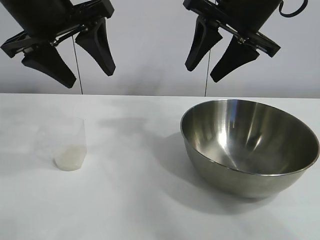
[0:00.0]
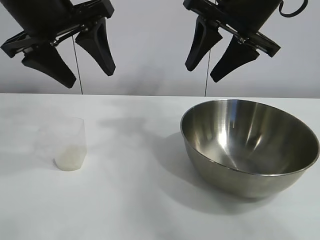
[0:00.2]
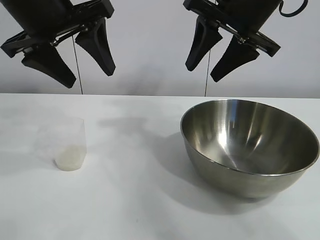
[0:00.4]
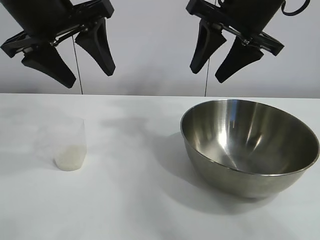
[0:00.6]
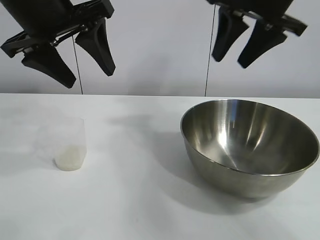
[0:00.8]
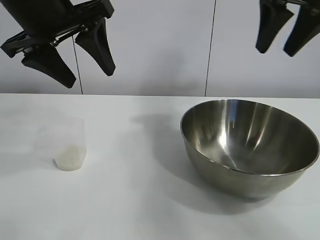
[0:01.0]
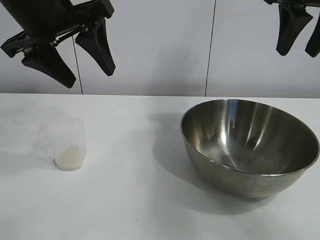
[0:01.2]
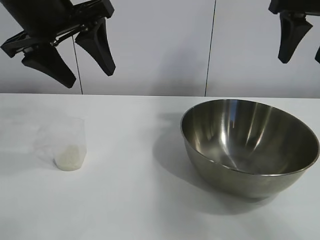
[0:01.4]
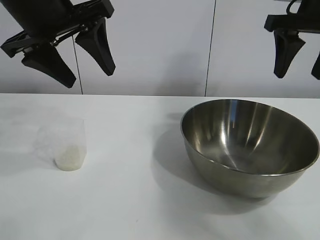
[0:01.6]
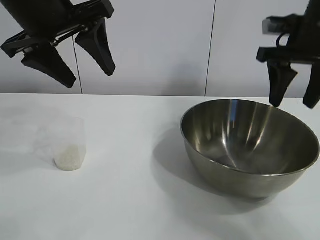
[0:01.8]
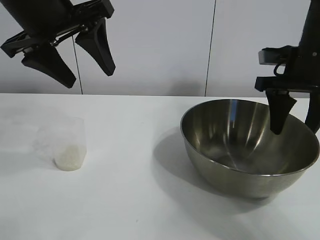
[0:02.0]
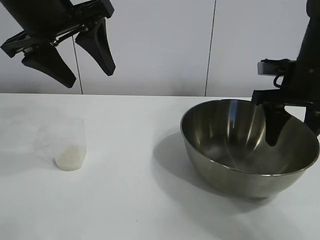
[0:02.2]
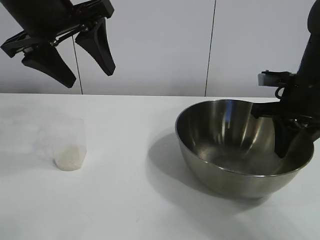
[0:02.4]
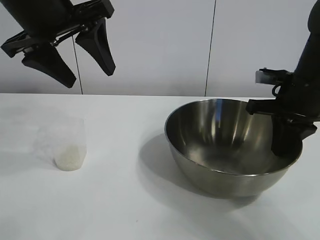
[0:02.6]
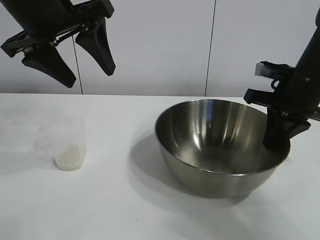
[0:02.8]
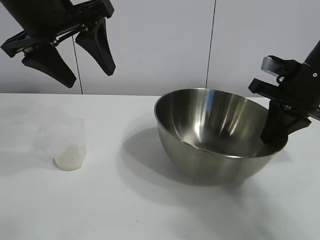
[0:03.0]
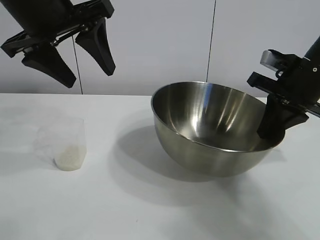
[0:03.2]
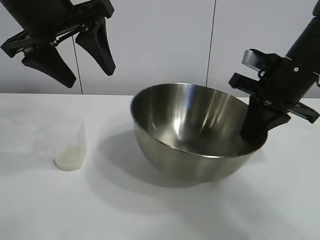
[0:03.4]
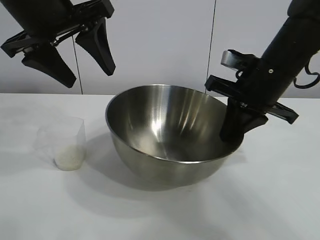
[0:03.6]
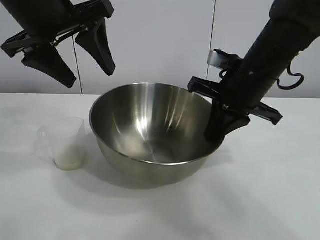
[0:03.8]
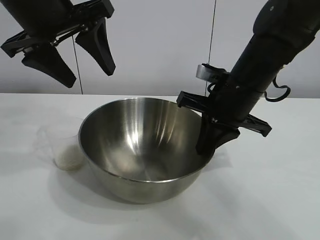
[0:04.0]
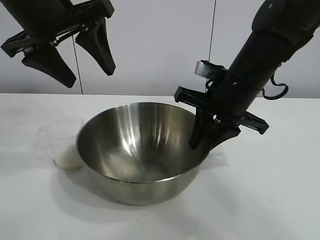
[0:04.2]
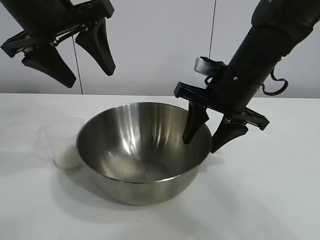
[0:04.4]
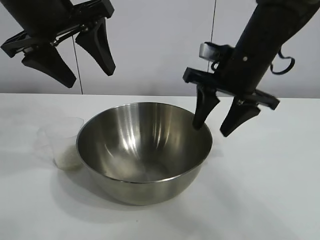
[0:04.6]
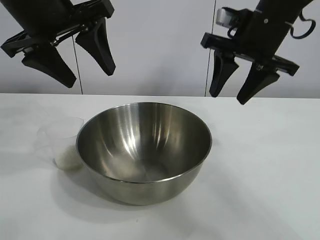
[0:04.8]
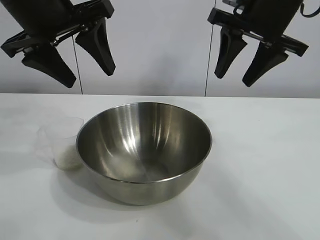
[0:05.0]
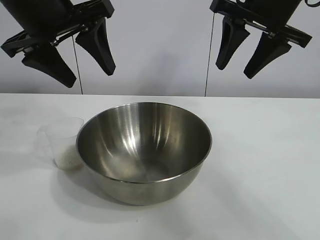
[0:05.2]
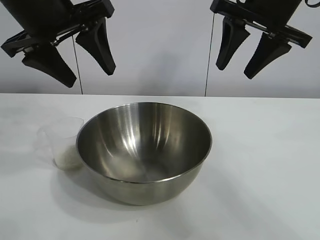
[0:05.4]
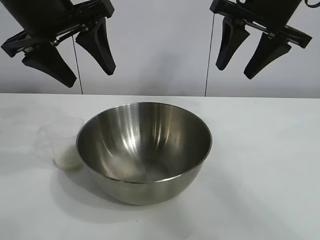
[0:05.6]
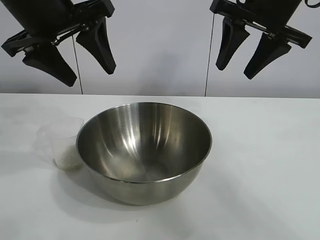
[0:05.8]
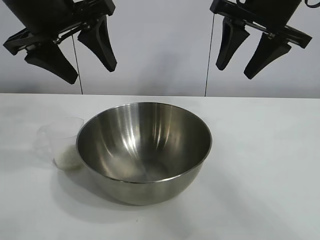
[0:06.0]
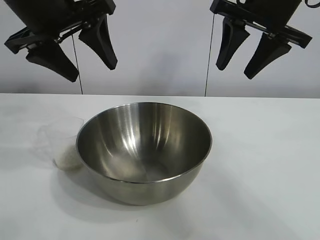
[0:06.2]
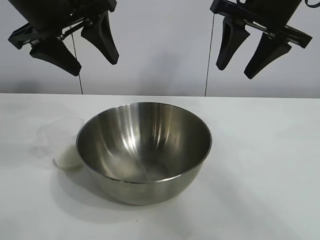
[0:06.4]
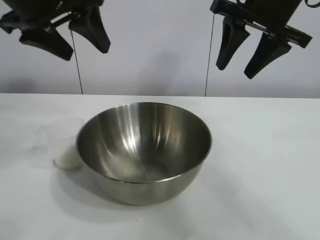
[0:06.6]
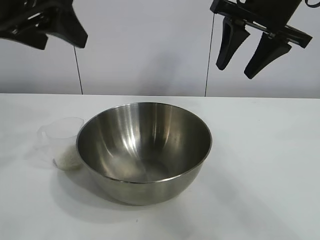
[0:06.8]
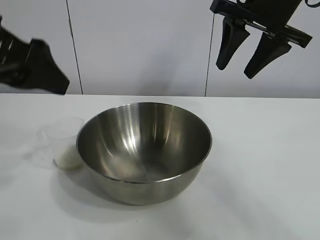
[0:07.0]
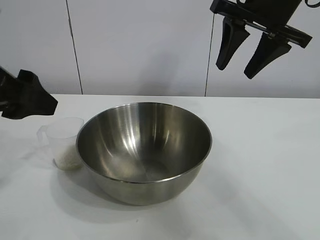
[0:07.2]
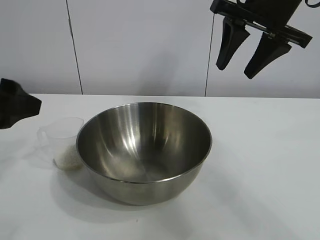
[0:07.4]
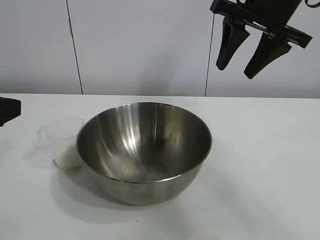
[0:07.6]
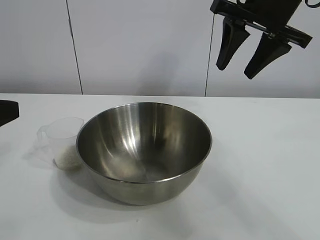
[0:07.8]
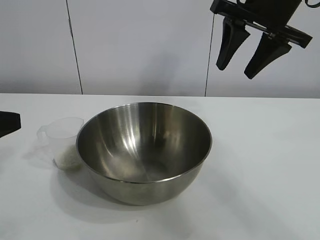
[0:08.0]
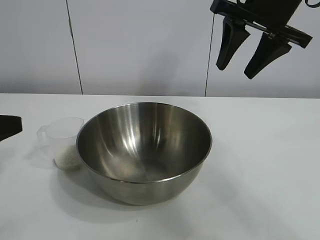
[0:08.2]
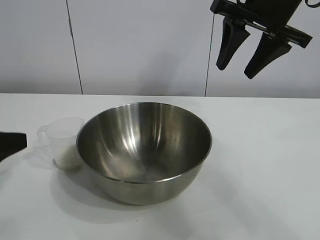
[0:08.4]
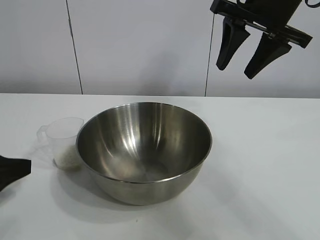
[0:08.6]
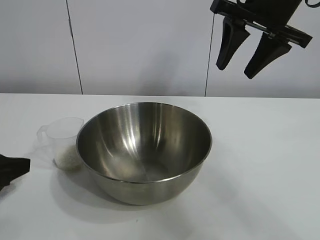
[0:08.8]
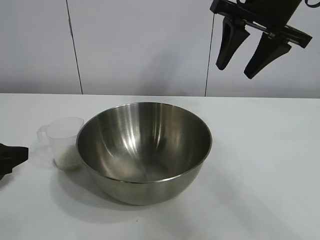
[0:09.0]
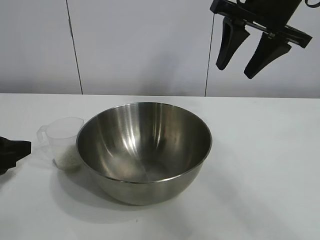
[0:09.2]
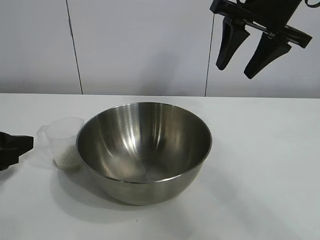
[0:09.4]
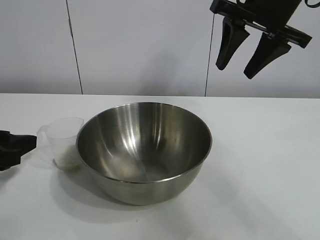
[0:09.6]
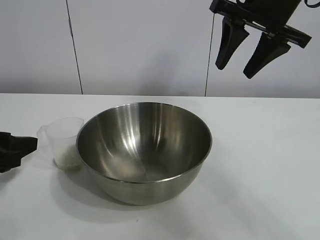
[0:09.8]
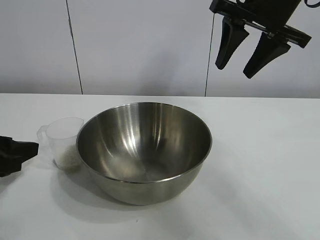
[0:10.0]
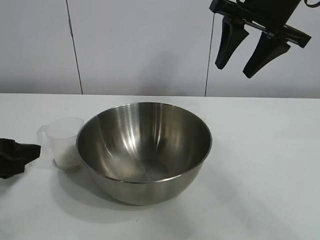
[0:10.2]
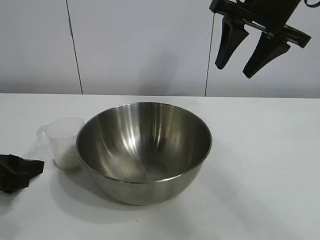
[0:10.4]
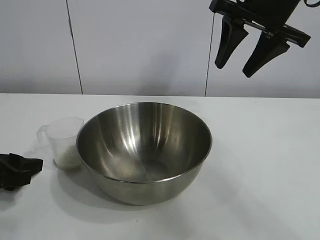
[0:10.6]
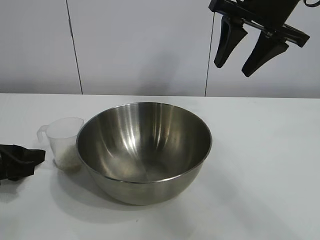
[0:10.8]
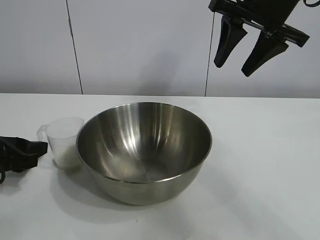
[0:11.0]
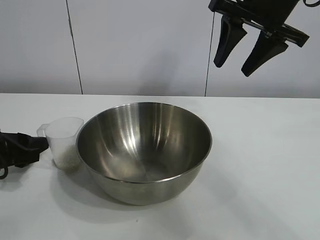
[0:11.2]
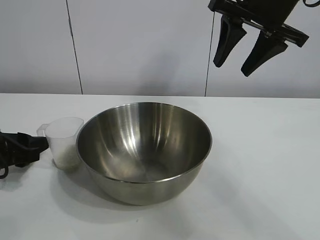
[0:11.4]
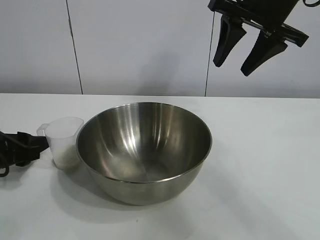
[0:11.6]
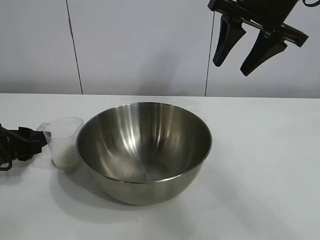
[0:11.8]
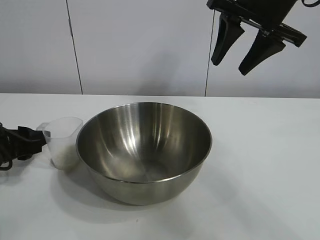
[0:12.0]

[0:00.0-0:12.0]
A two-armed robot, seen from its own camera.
Task of the whole recording: the right gripper grasp the rice container and place it in the center of the table, the left gripper grasp the rice scoop and pour the rice into the rice container.
Step, 0:00.6 to 0:04.2: Move the bowl in the center of view with right gripper.

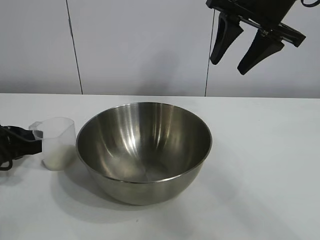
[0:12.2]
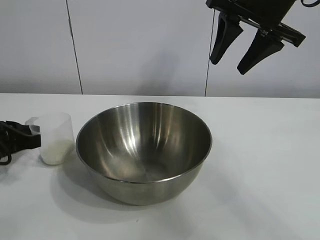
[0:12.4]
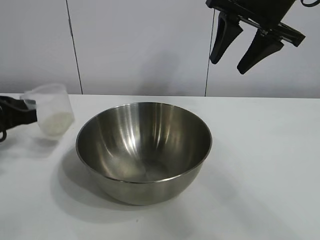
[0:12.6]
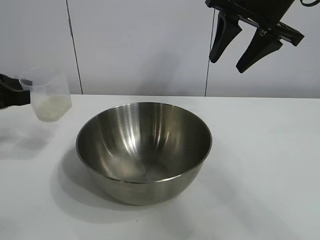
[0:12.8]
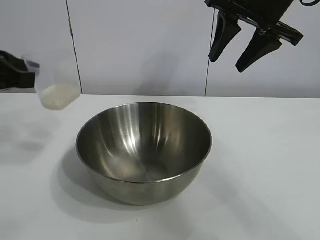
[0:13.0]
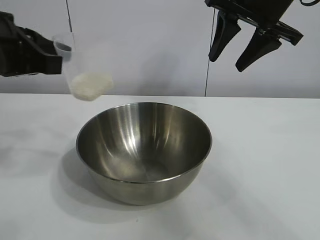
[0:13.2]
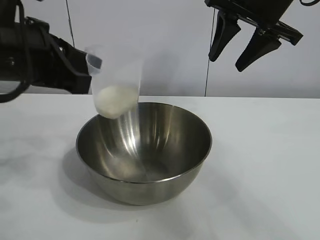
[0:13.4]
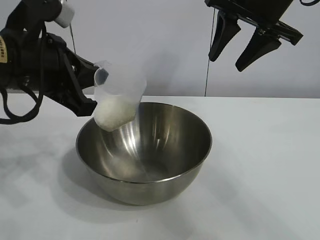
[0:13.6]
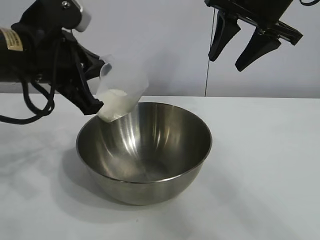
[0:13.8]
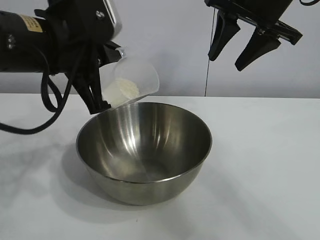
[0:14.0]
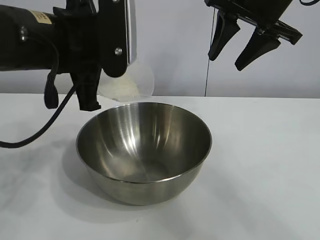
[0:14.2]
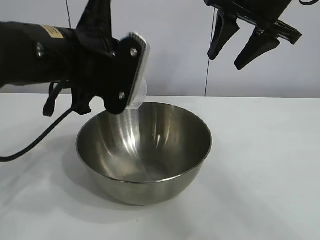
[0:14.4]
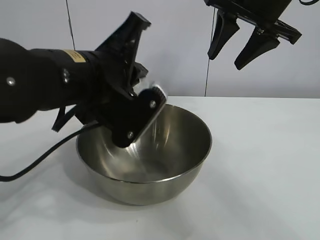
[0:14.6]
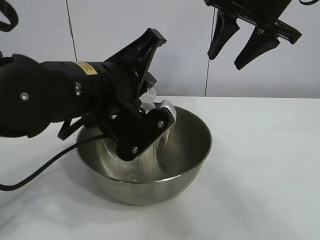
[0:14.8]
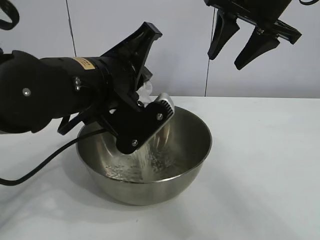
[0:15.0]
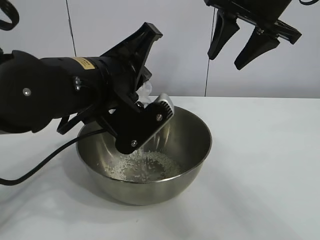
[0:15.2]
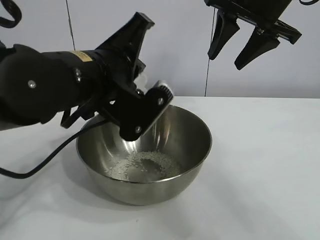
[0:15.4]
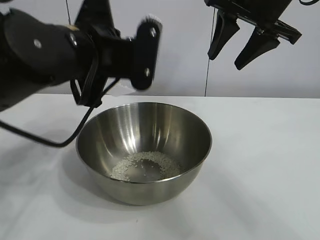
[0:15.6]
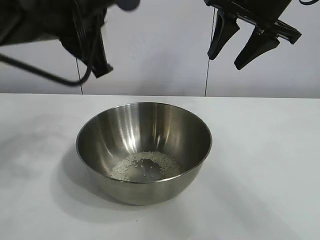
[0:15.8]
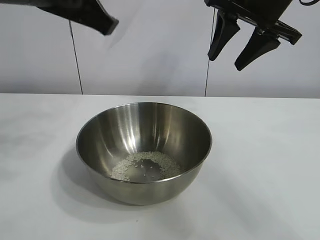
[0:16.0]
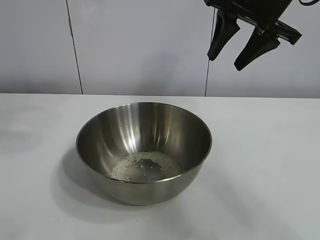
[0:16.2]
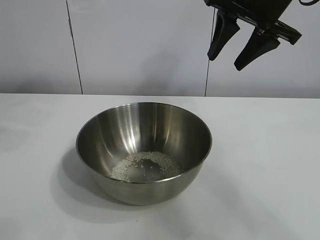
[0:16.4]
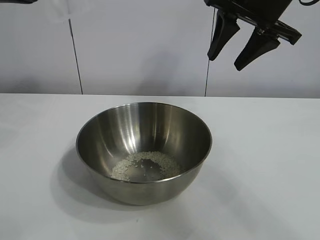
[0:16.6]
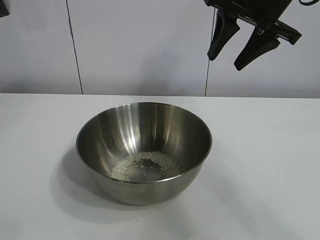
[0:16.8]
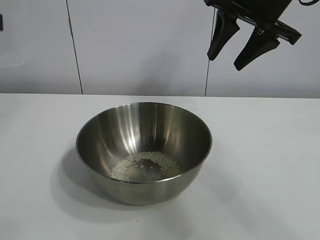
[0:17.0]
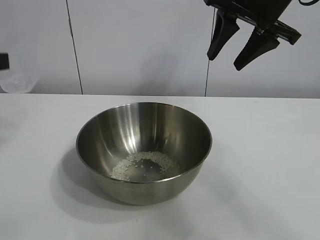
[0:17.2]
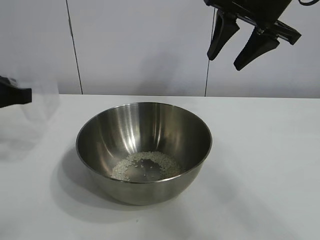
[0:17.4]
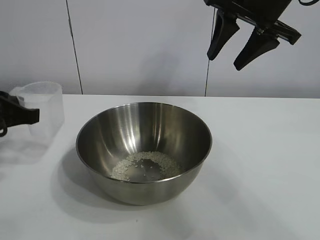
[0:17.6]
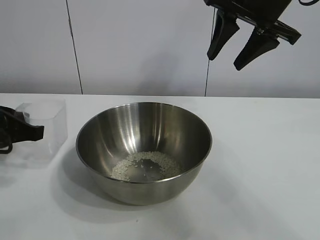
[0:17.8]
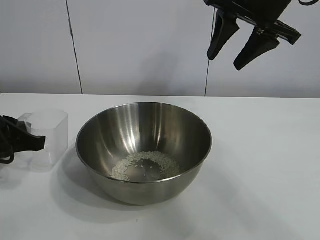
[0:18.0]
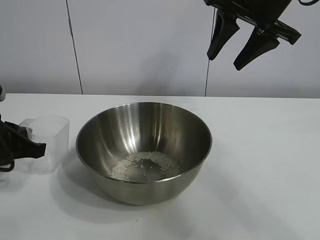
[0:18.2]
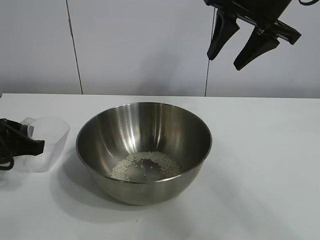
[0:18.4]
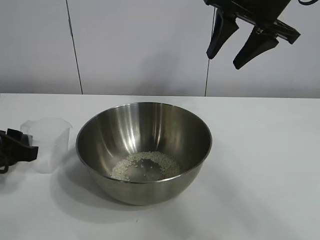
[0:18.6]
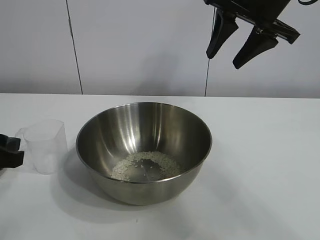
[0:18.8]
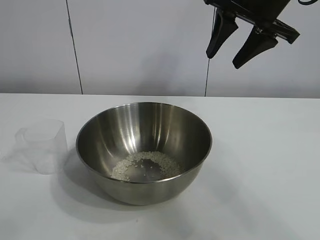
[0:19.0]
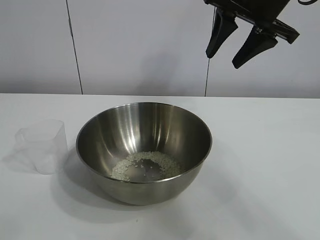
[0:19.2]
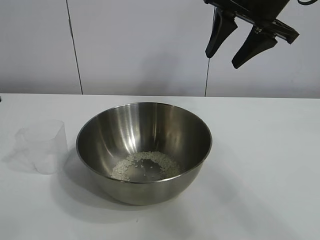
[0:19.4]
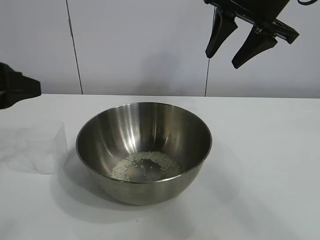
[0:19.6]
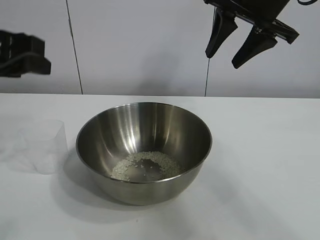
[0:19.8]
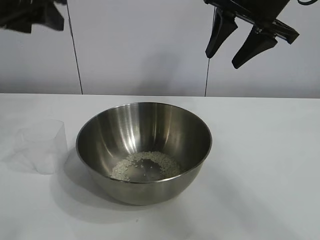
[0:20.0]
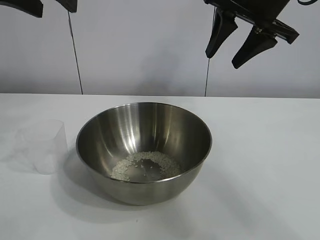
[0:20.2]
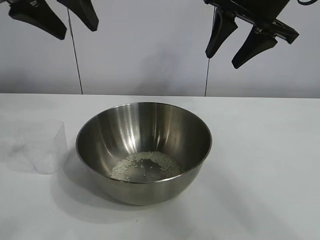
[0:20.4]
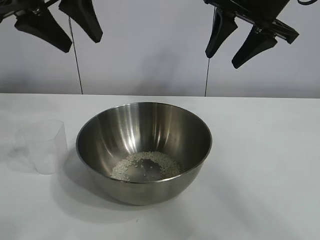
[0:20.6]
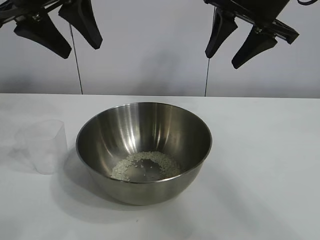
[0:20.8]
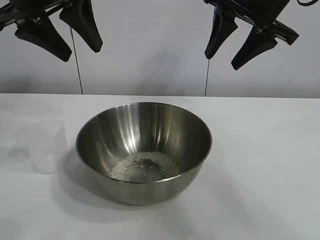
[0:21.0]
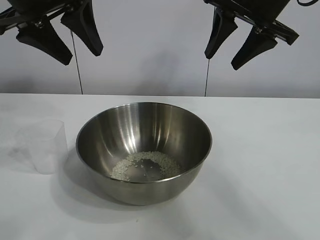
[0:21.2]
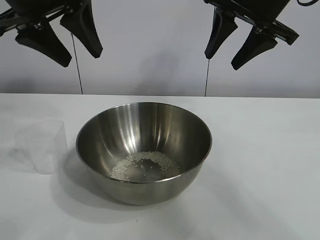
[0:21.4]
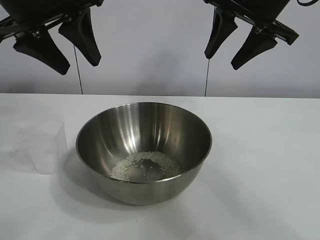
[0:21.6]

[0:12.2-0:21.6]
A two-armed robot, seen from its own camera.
Task of the whole recording: the right gripper grasp the rice container and place it in the center of the table, the left gripper grasp the rice scoop and pour the rice into the rice container.
Step, 0:12.4 to 0:15.4: Pour the rice from the cup into the bowl with the left gripper.
Step, 0:15.6 to 0:18.6: Place the cup on the table with the left gripper.

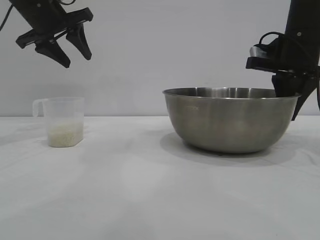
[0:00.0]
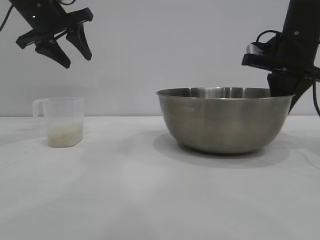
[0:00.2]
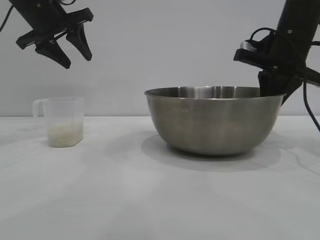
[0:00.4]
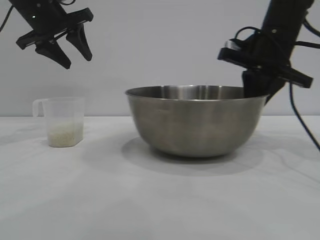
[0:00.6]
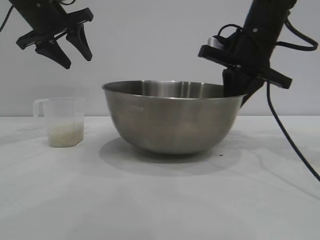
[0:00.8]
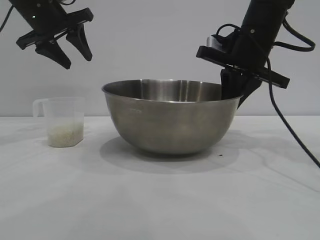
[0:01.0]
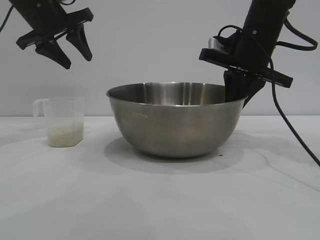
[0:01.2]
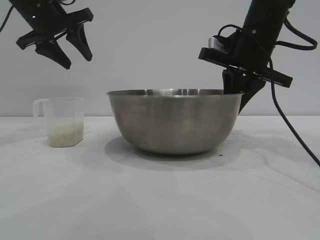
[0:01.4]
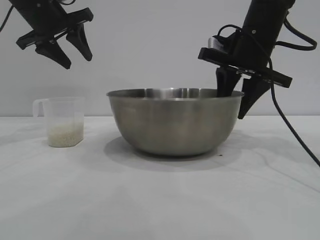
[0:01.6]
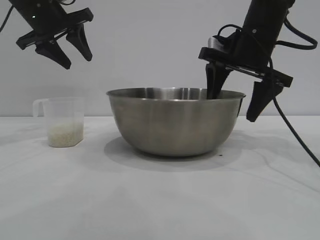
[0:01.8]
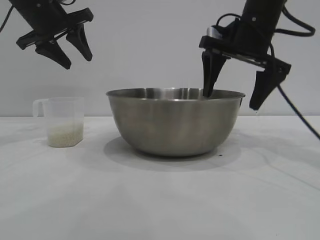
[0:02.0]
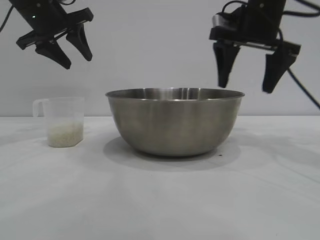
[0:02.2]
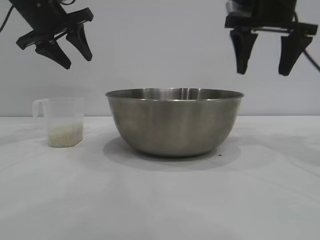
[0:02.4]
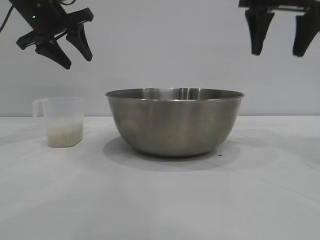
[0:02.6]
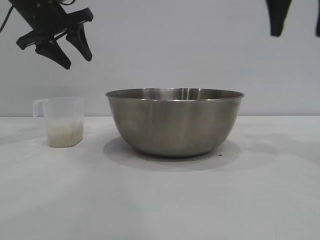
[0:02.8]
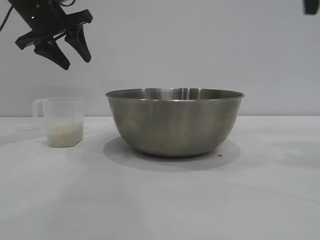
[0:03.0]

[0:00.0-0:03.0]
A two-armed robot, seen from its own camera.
Task of the whole recording: the right gripper grasp the rice container and place it in the center of the table, the left gripper grasp the rice scoop and pour the rice into the rice container.
Step, 0:00.0 to 0:02.0: Move the bowl to the center of view with the right gripper.
